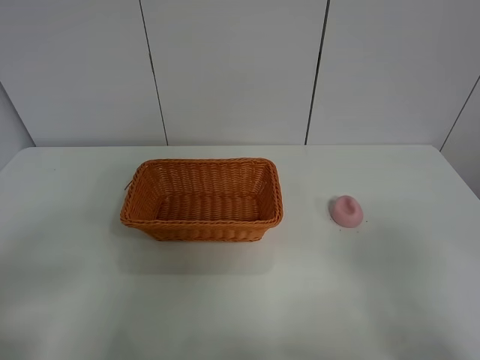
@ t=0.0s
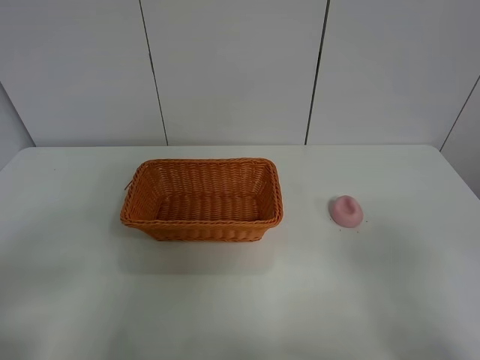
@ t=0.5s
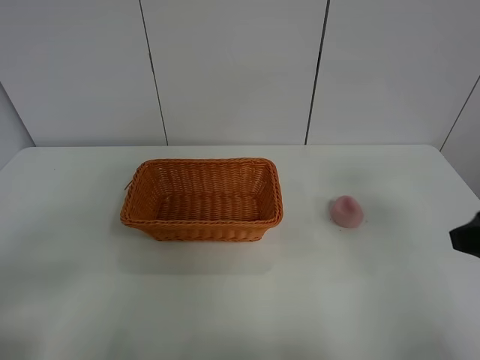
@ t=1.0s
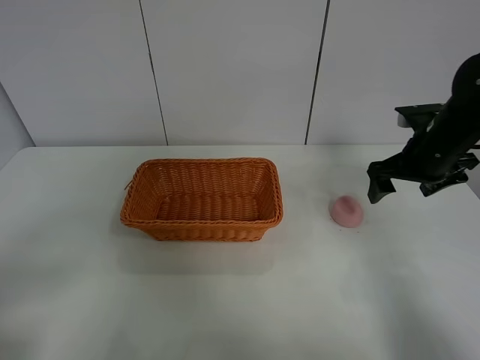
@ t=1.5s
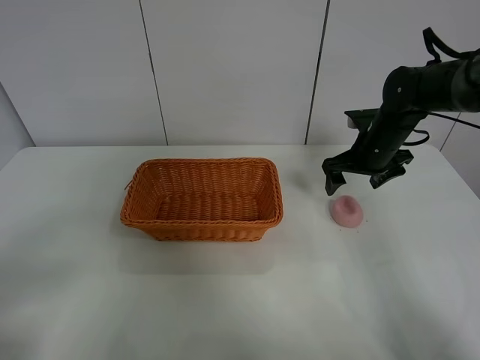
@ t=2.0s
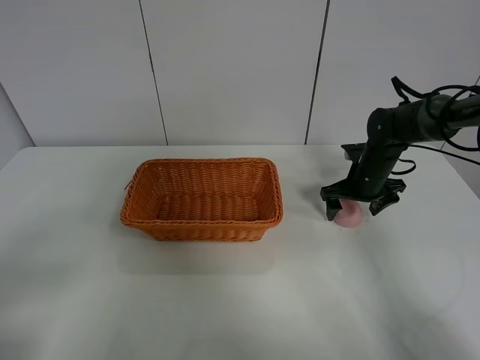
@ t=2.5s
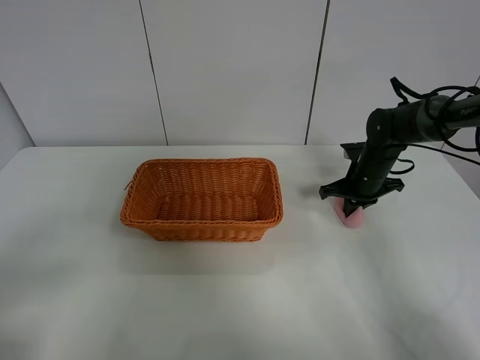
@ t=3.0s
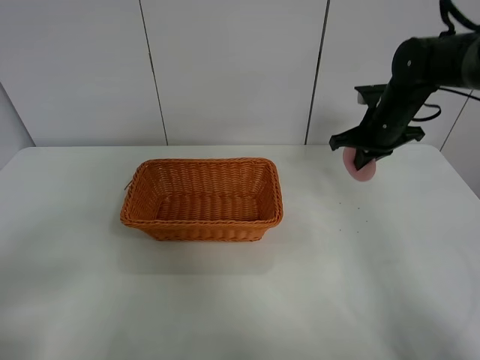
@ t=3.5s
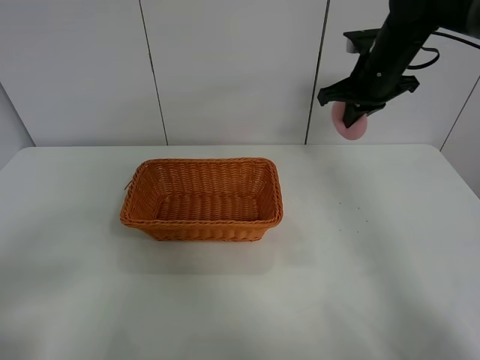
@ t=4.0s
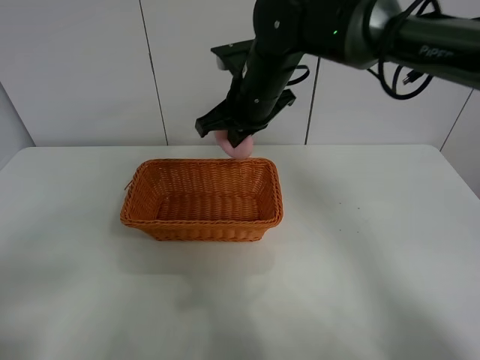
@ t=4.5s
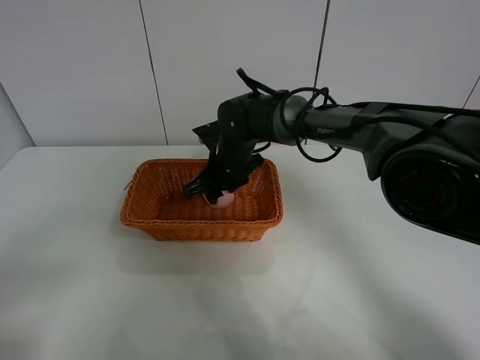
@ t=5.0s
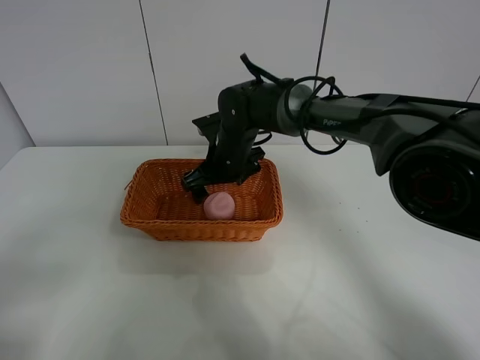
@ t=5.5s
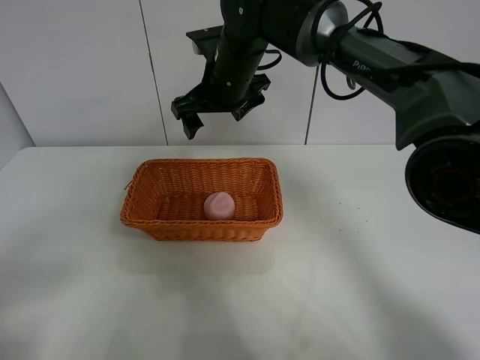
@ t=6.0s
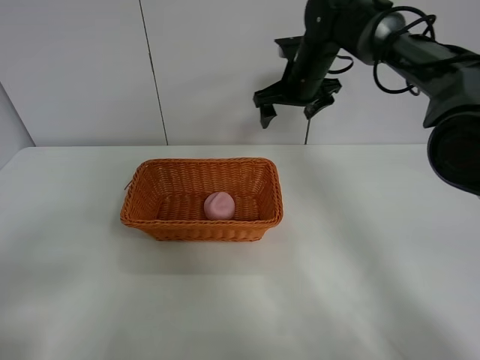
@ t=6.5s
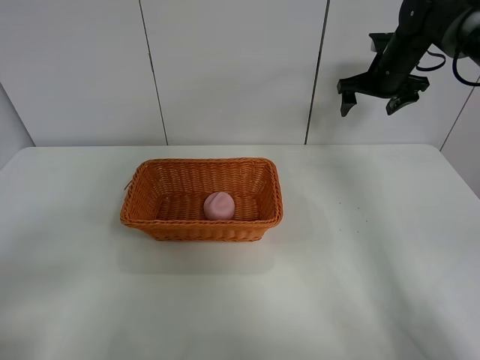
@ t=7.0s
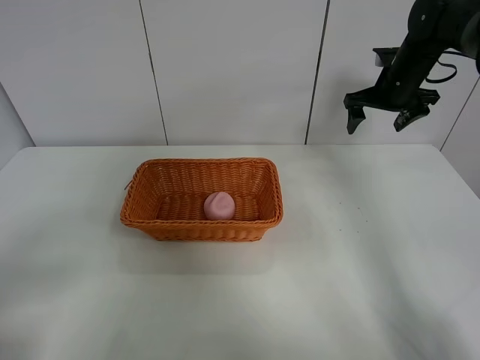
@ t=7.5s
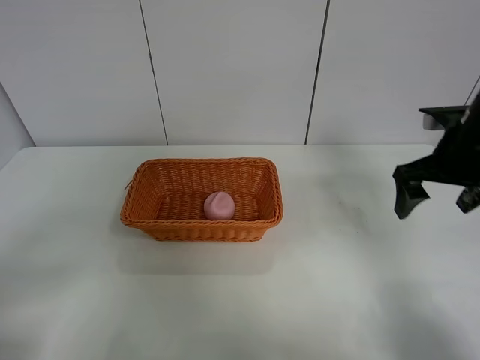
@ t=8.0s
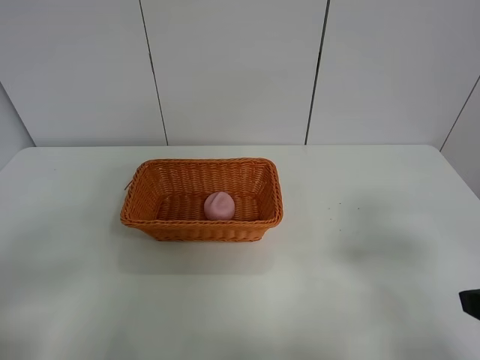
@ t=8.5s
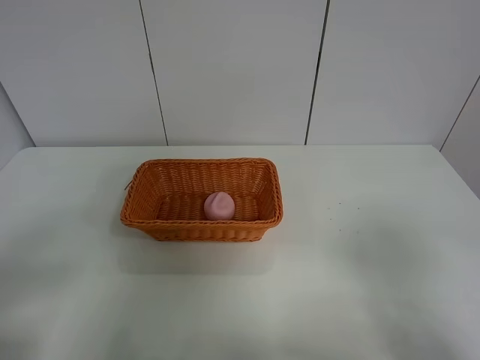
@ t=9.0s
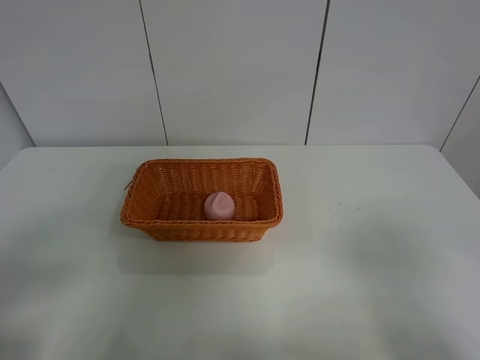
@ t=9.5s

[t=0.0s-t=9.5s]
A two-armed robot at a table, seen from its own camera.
Step, t=0.0s to t=3.0s: Grasp the peach with right gripper.
Step, t=3.5s to t=6.0s: Place the peach in the basket with right gripper.
t=0.0s to t=2.0s: The right gripper shifts some 40 cm forward.
t=2.0s to t=4.0s: The right gripper is displaced upward by some 10 cm, and closes its fingers.
t=4.0s to t=5.5s: The right gripper shifts roughly 25 cm to the left and downward, and opens.
t=5.5s to t=7.5s: The right gripper shifts about 30 cm to the right.
t=7.5s to t=9.5s: The right gripper travels backward by some 50 cm.
